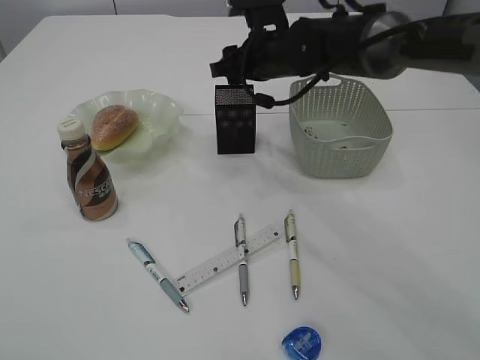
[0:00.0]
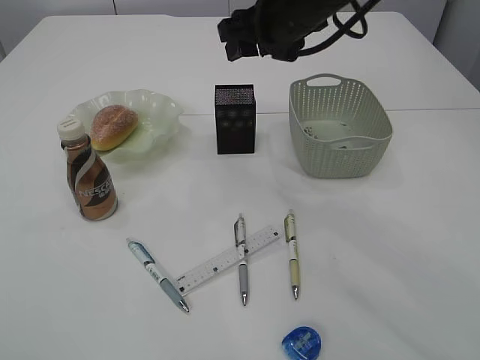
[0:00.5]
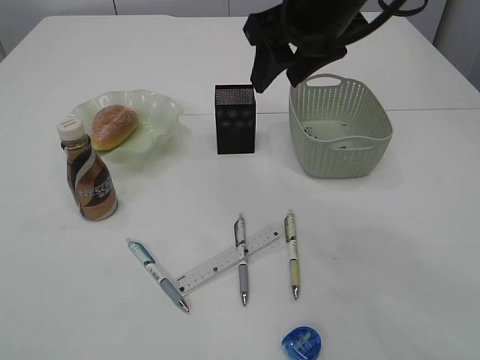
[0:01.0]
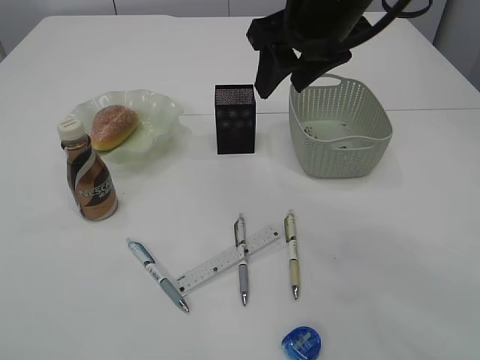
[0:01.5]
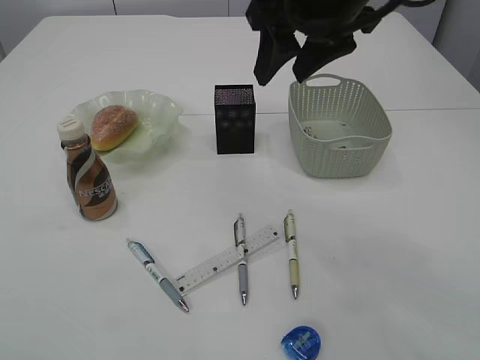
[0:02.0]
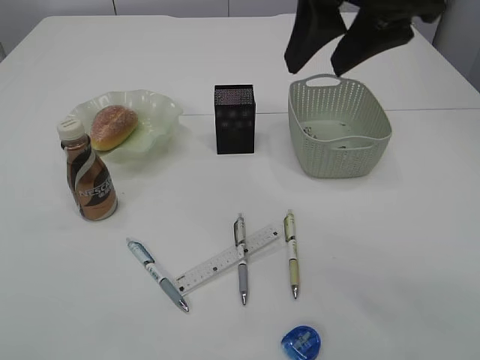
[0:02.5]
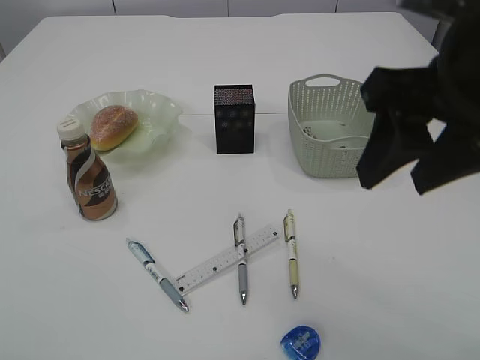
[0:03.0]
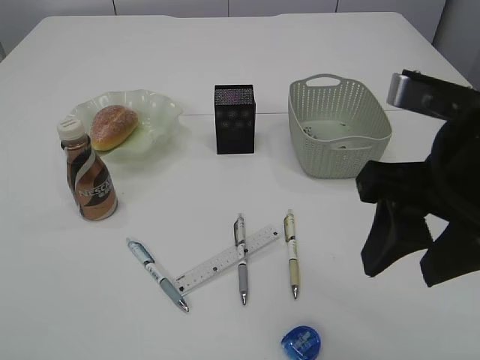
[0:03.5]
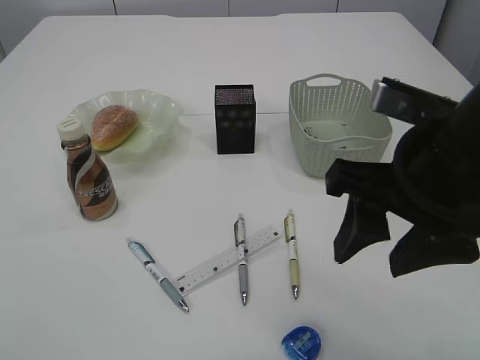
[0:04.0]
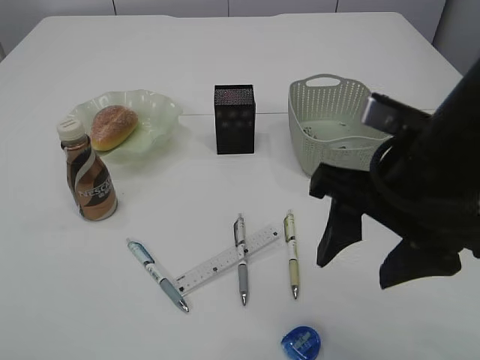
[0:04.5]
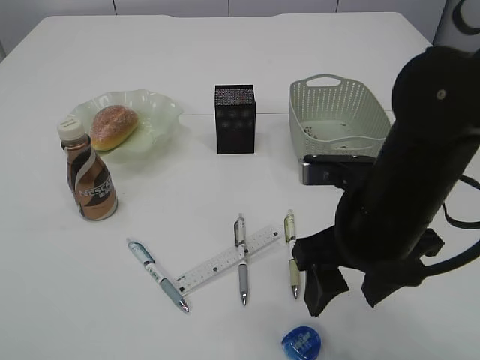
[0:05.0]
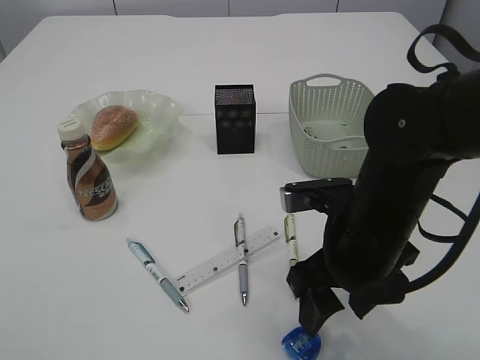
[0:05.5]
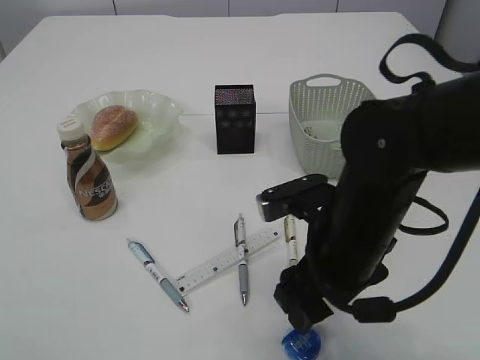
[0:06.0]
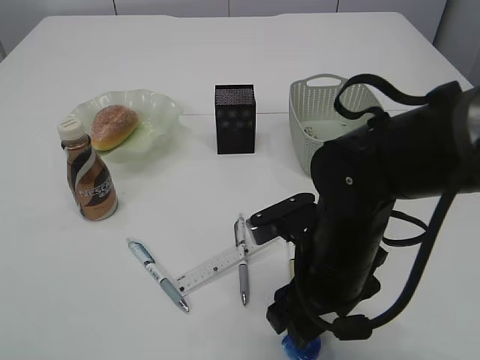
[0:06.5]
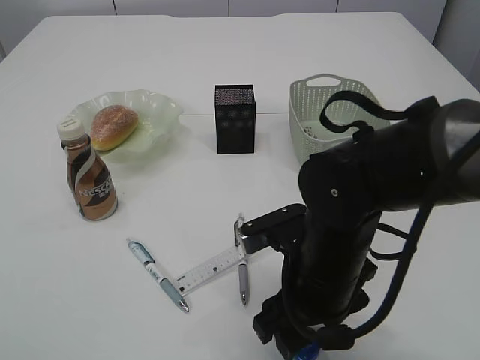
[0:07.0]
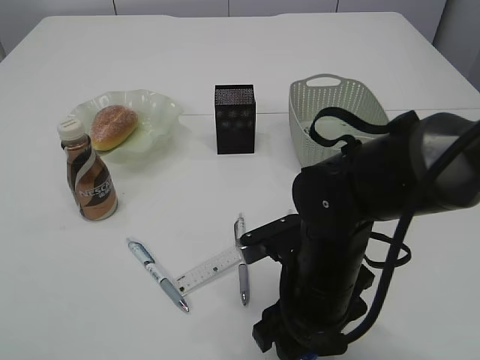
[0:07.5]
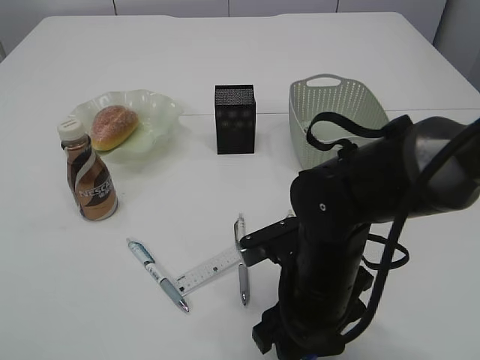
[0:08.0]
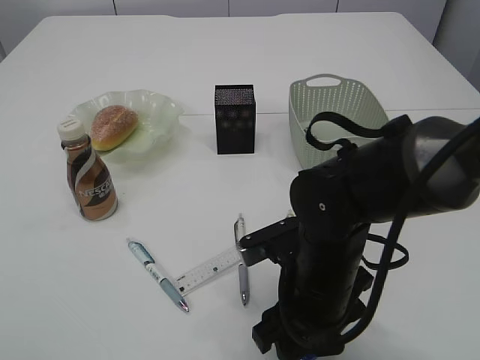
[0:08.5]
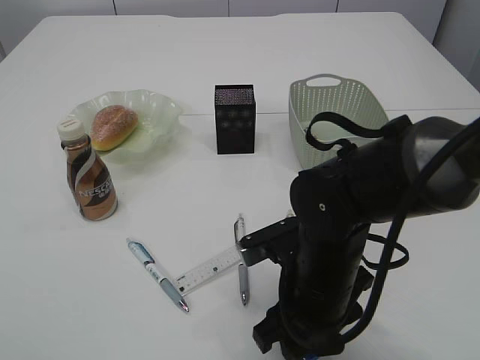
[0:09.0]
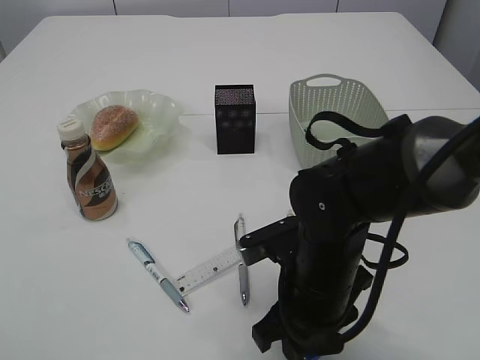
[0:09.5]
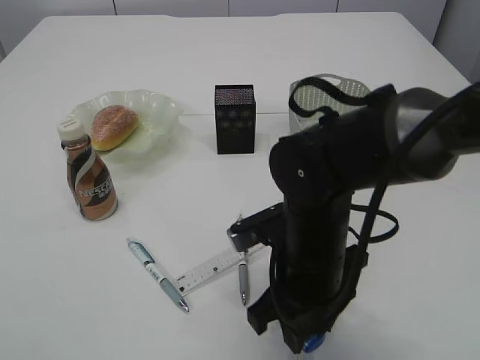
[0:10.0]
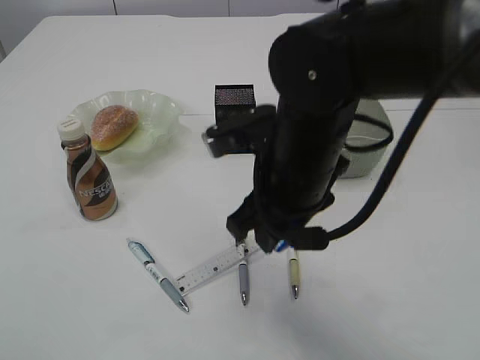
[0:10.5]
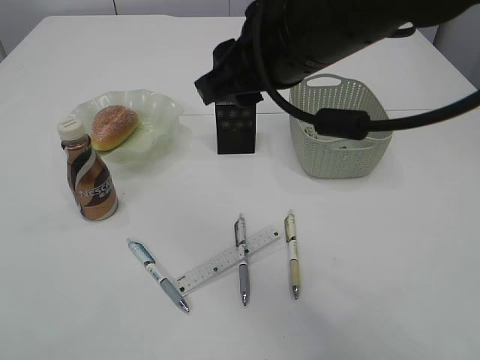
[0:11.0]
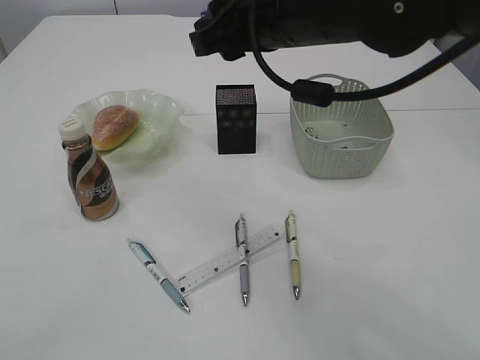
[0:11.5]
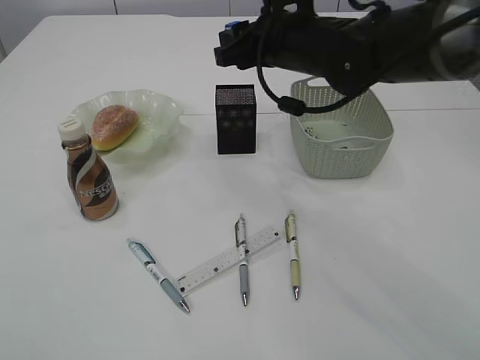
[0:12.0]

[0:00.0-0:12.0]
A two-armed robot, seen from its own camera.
Step, 0.5 to 10.0 s: Pick up the blue pencil sharpener.
0.0 to 2.0 s: The right gripper travels upward and backward by about 20 cm.
2.0 to 4.0 s: The right gripper goes approximately 15 cm backward and downward.
4.0 to 6.0 s: The right gripper heads downward, covering roughly 10 cm.
6.0 to 8.0 s: The right gripper heads downward, covering some 5 cm.
8.0 to 10.0 s: The right gripper closes up.
10.0 to 12.0 s: The right gripper heads forward and upward, covering approximately 20 cm.

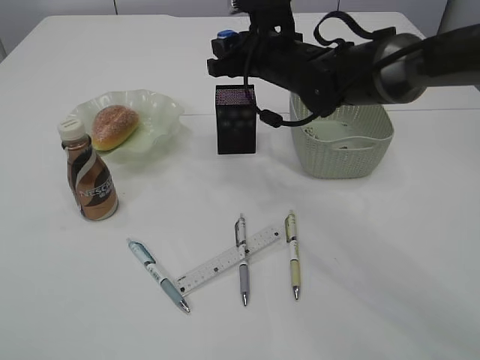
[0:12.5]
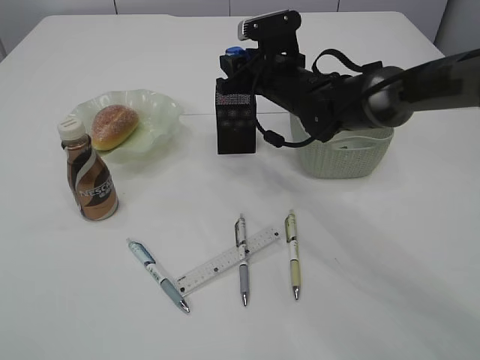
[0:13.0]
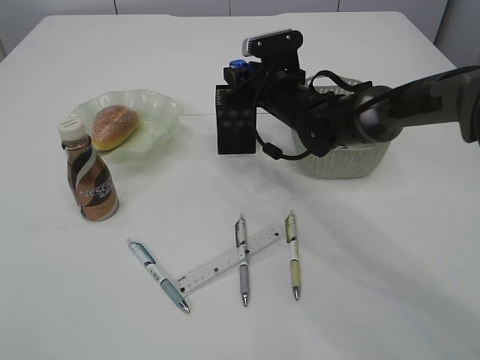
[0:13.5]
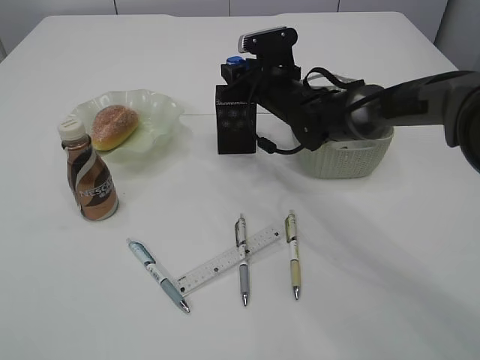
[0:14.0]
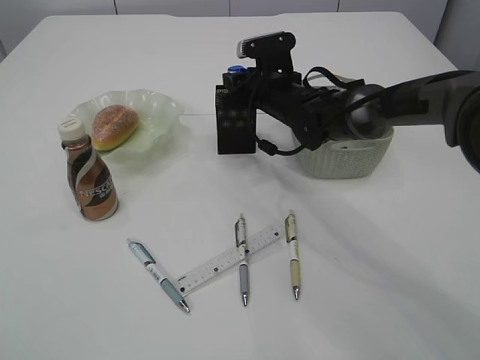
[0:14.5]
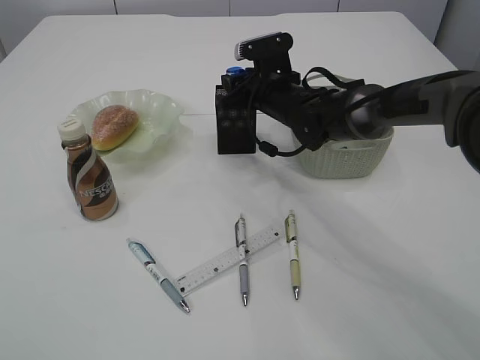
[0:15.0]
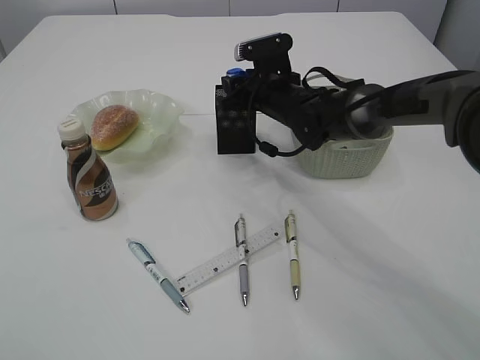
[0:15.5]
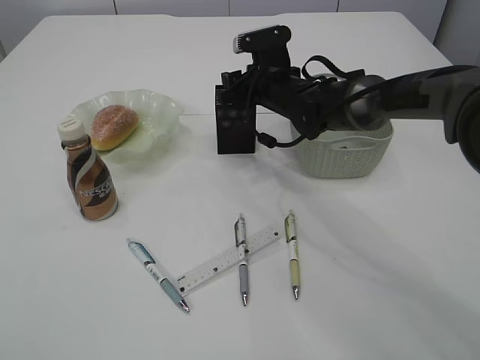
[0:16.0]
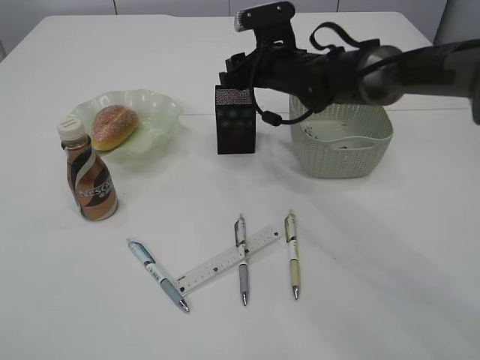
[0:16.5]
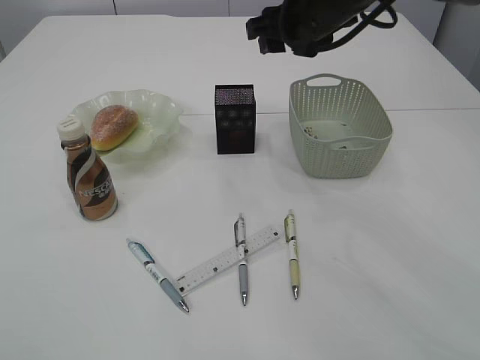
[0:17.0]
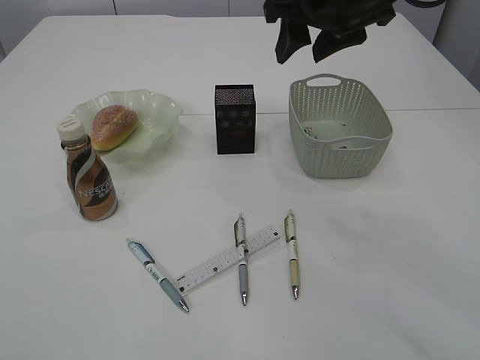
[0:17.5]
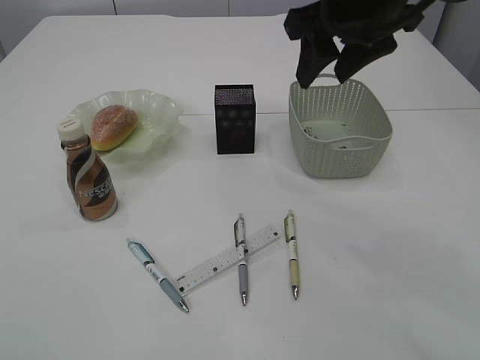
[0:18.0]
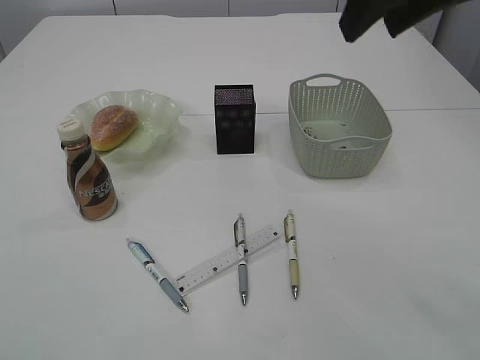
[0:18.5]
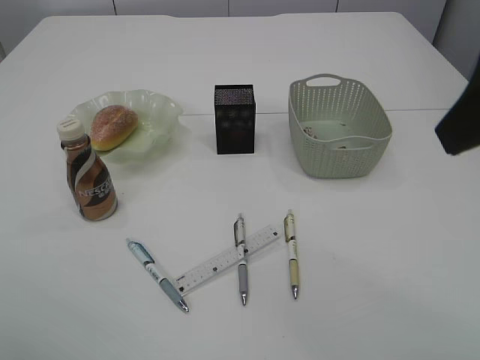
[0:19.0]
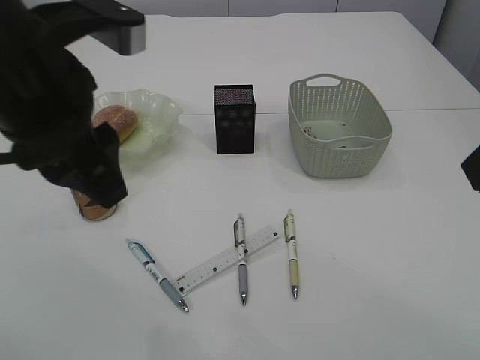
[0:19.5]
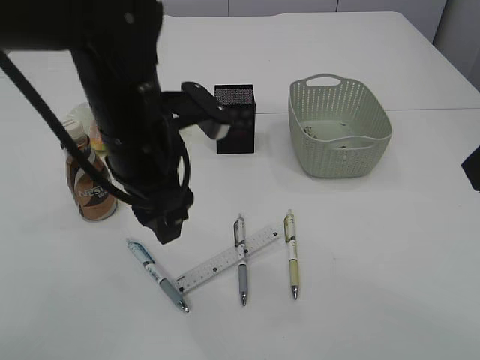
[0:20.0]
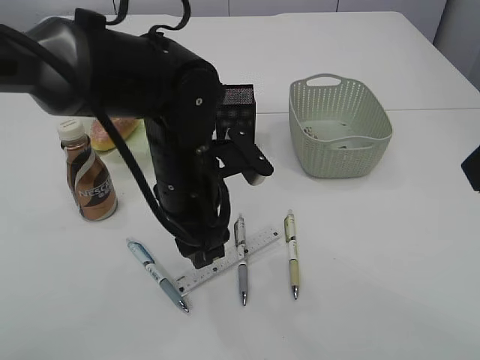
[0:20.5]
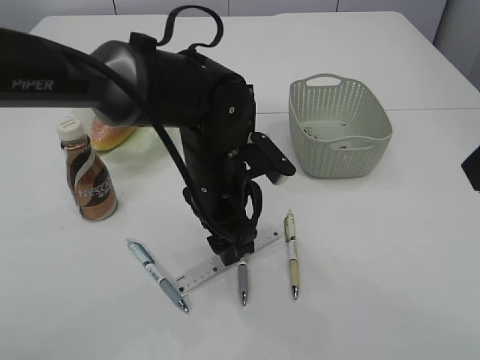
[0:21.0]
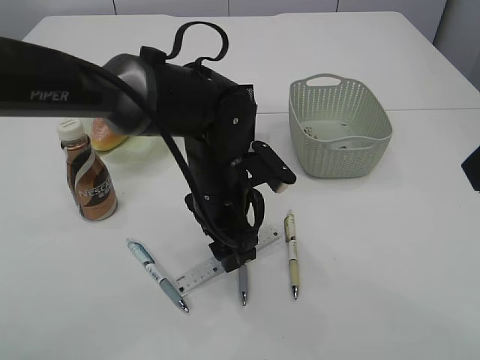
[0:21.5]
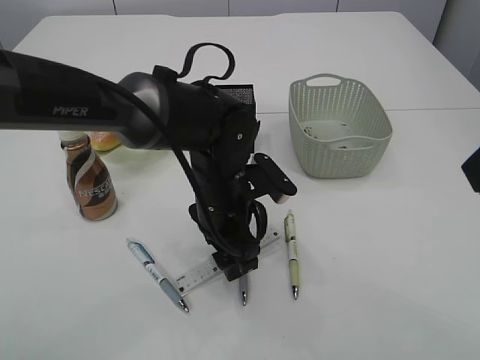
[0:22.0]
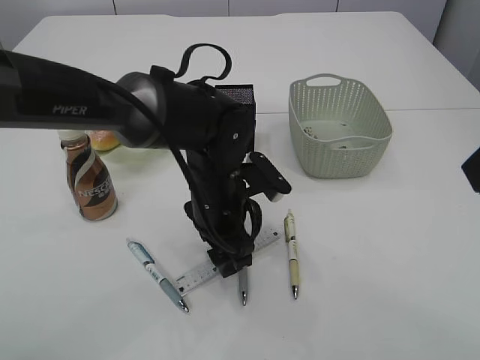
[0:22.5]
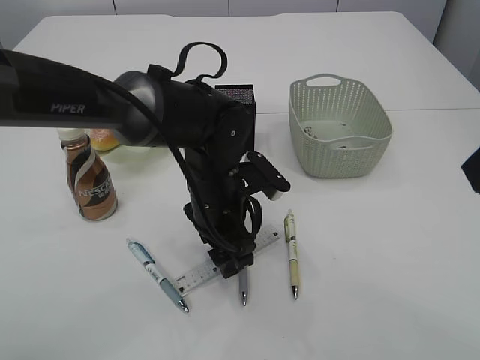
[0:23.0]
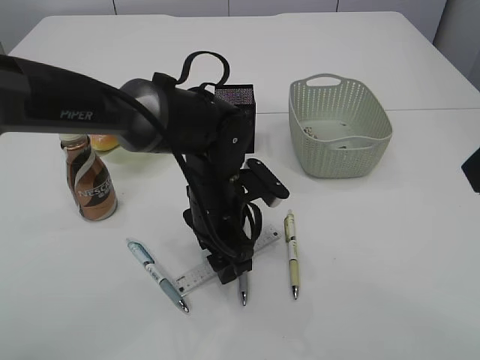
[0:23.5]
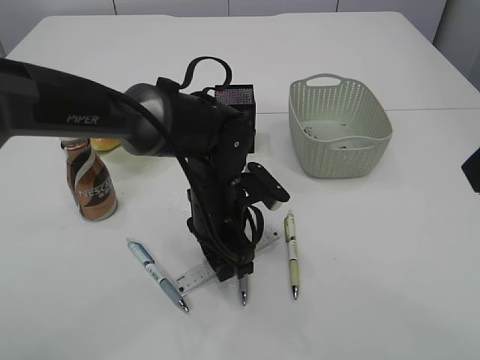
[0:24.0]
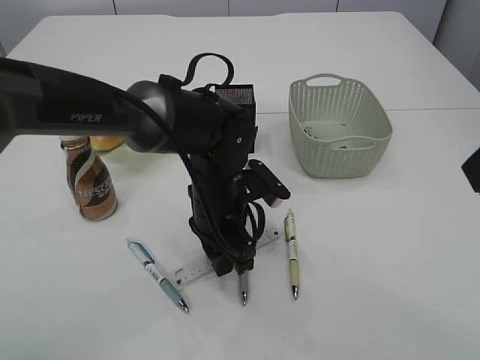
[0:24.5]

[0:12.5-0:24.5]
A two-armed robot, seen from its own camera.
Step, 12.5 to 16.5 s: Place the blue pencil sharpener into the pen holder.
12.5 to 14.5 s: The right gripper heads downward, covering some 10 cm.
14.5 to 16.5 s: The grippers make only small movements.
16.5 to 18.5 s: The right gripper is displaced upward and backward by approximately 30 cm.
18.5 to 20.5 s: The left gripper is displaced to the right, forward and downward by approximately 35 cm. Meanwhile the right gripper is displaced backward by some 15 cm.
20.5 to 22.5 s: The left gripper is displaced downward by some 5 cm.
22.5 to 24.5 s: The left gripper closes up.

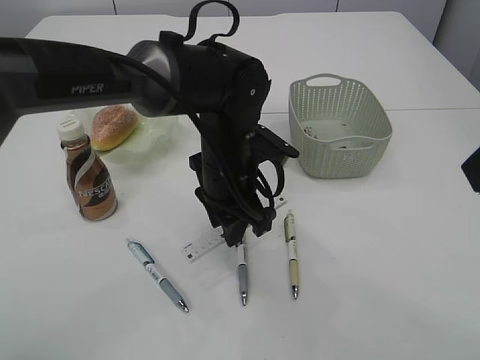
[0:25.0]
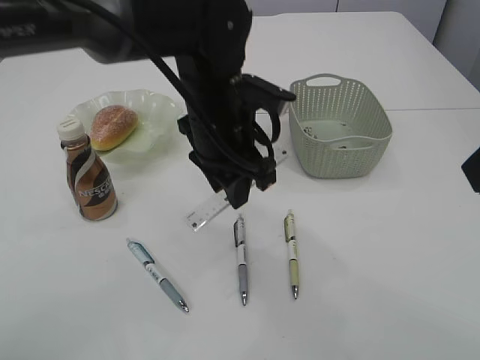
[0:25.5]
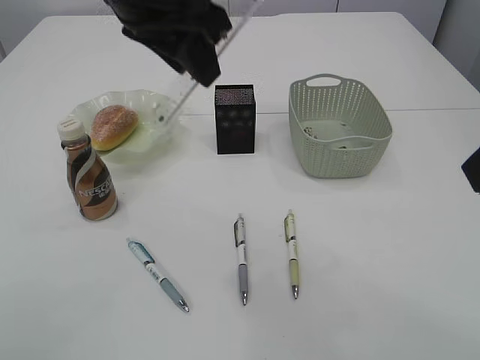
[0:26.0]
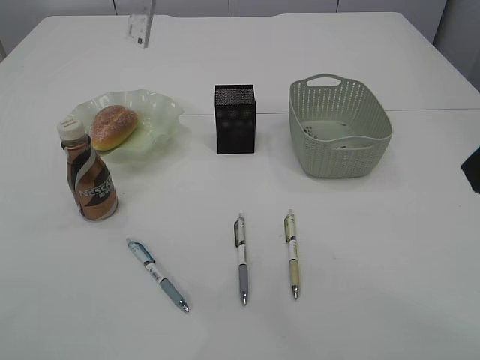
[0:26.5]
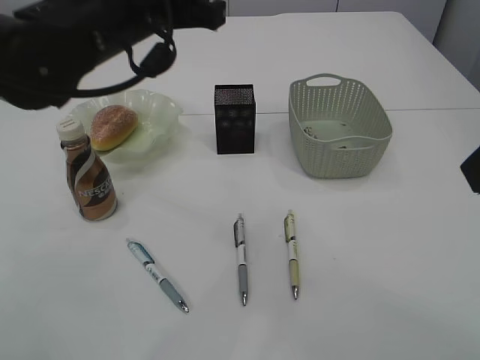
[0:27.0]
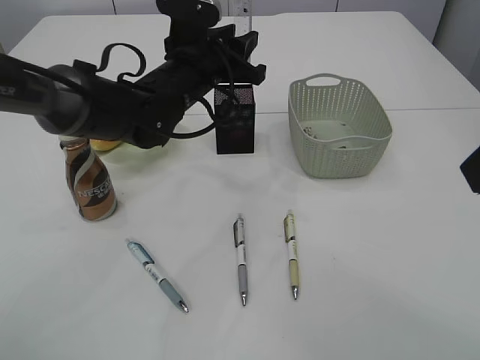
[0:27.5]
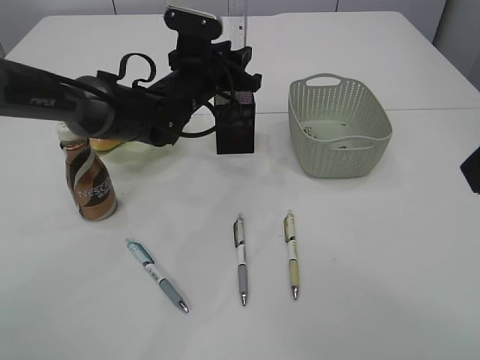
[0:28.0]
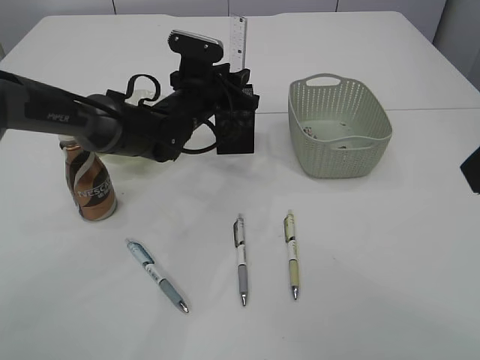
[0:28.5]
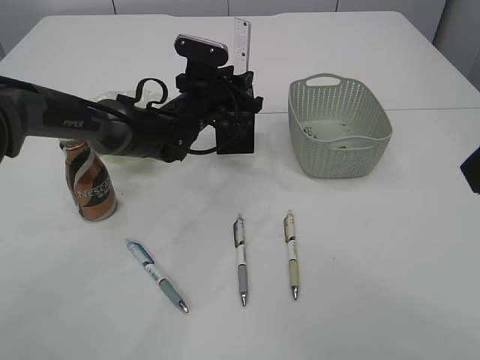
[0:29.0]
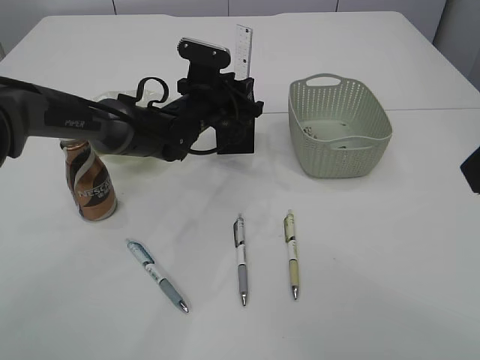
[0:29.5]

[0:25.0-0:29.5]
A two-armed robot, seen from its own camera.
25.0 to 27.0 s: The left gripper goes approximately 20 cm upward and to the left.
27.0 to 29.5 s: The left gripper shifts approximately 20 cm downward and forward.
